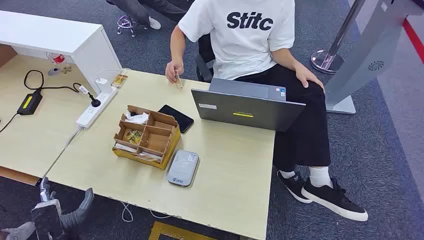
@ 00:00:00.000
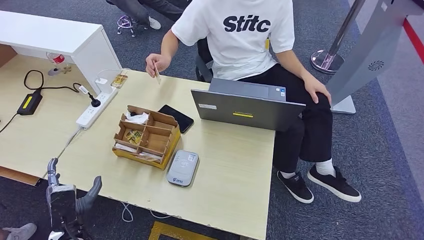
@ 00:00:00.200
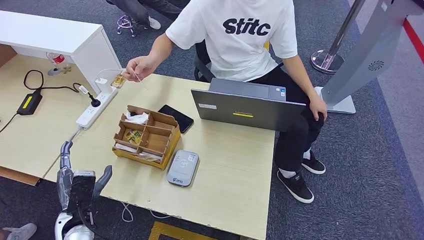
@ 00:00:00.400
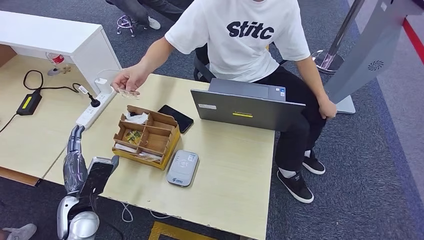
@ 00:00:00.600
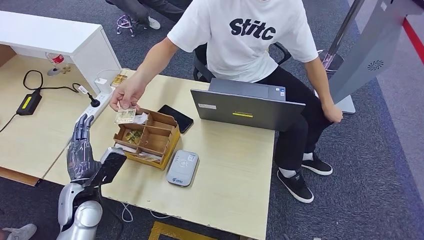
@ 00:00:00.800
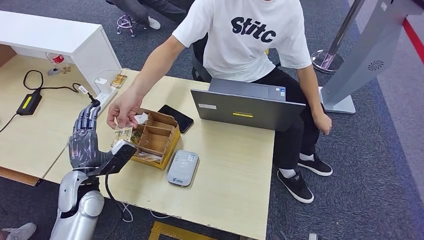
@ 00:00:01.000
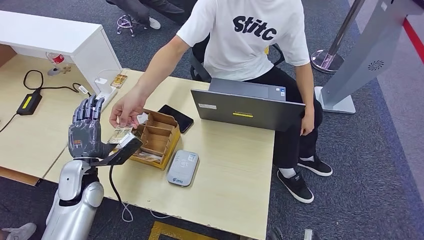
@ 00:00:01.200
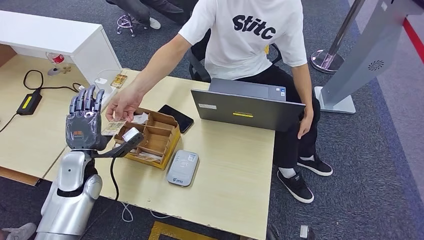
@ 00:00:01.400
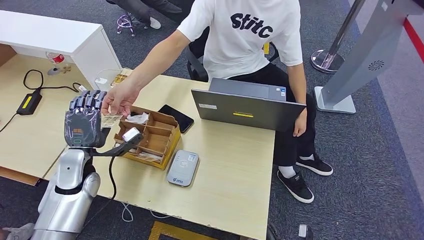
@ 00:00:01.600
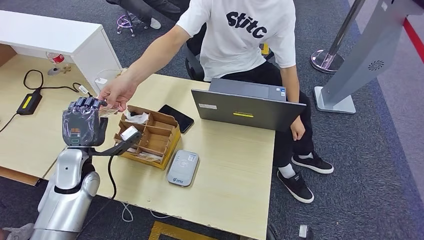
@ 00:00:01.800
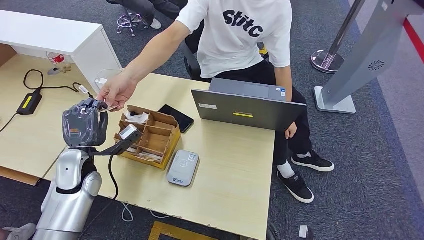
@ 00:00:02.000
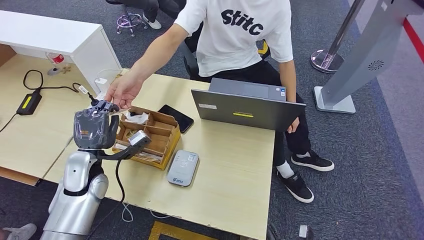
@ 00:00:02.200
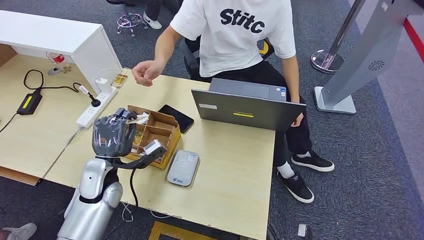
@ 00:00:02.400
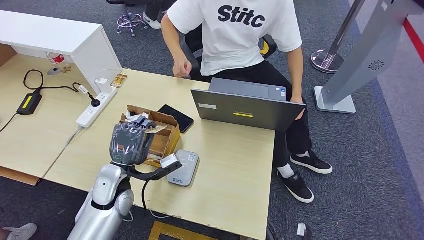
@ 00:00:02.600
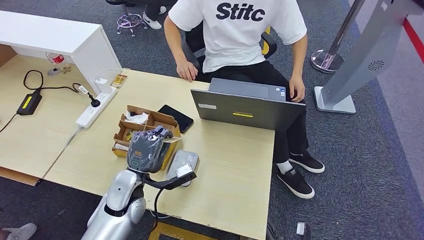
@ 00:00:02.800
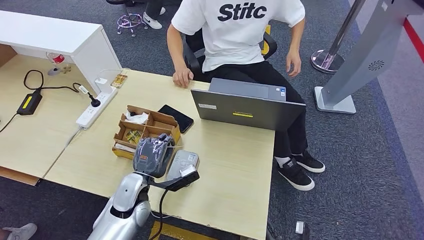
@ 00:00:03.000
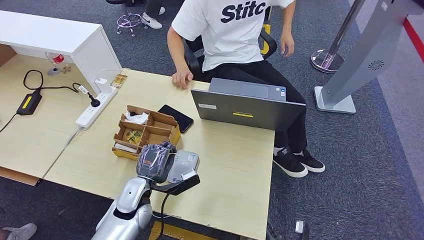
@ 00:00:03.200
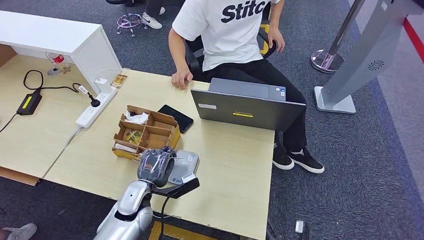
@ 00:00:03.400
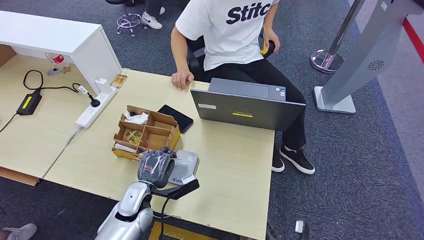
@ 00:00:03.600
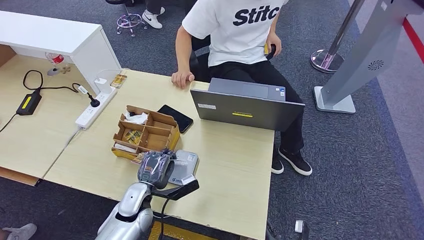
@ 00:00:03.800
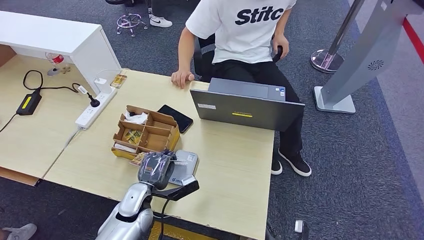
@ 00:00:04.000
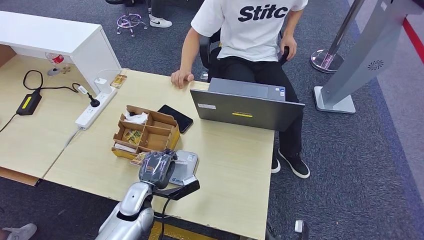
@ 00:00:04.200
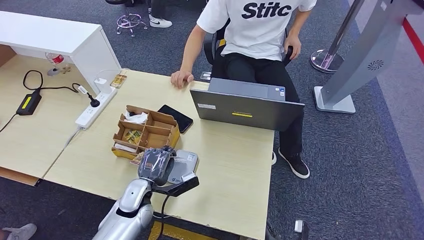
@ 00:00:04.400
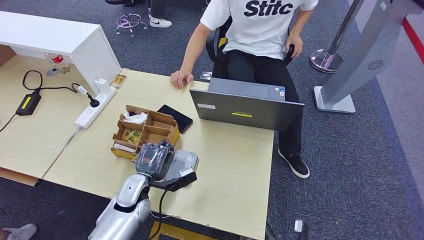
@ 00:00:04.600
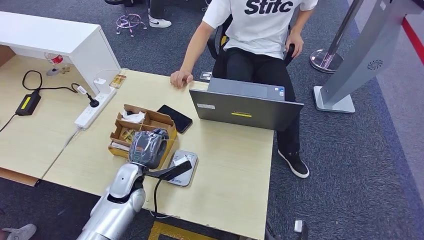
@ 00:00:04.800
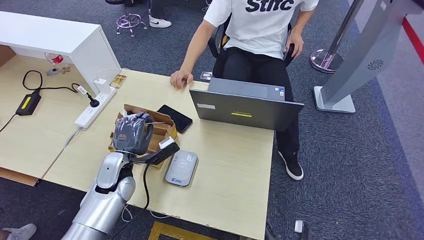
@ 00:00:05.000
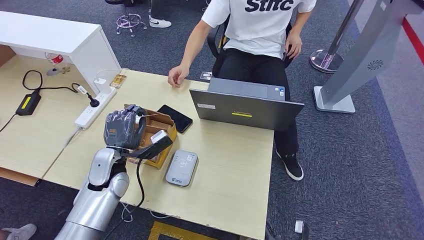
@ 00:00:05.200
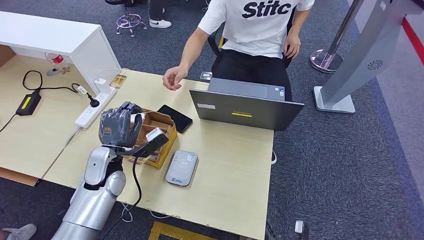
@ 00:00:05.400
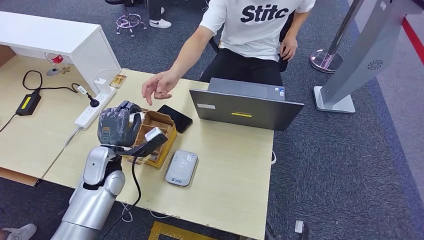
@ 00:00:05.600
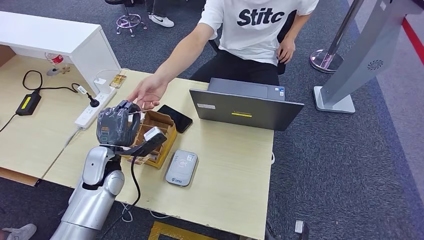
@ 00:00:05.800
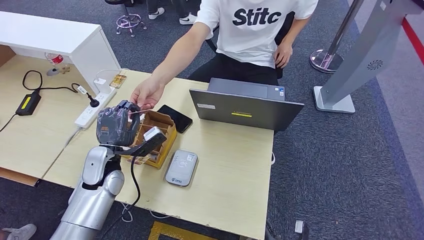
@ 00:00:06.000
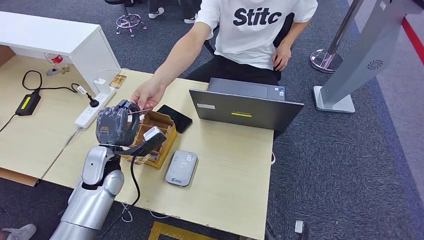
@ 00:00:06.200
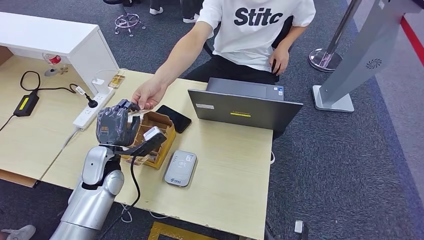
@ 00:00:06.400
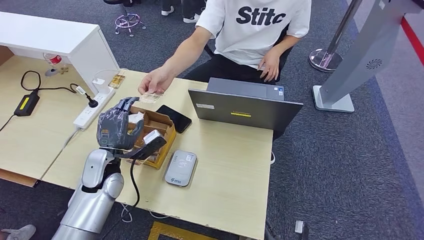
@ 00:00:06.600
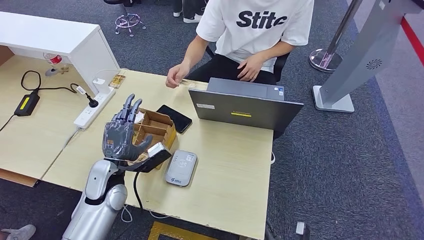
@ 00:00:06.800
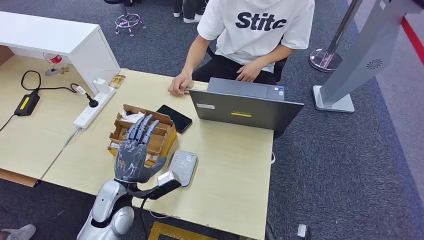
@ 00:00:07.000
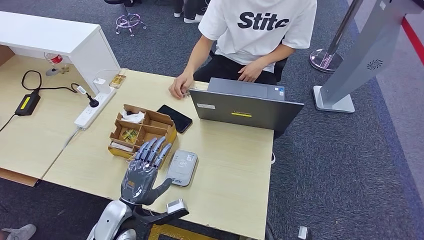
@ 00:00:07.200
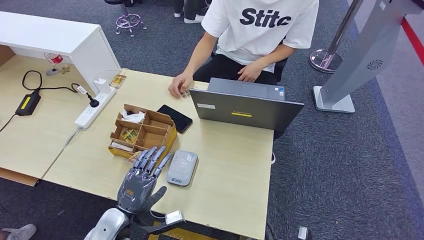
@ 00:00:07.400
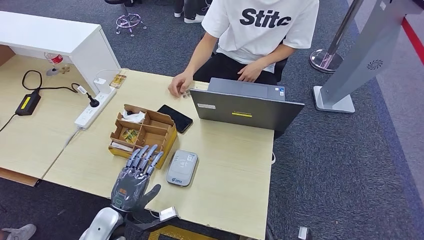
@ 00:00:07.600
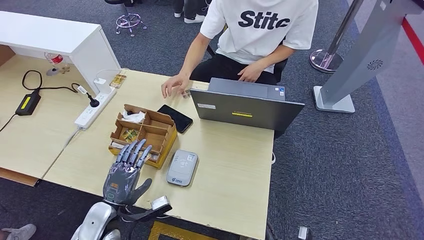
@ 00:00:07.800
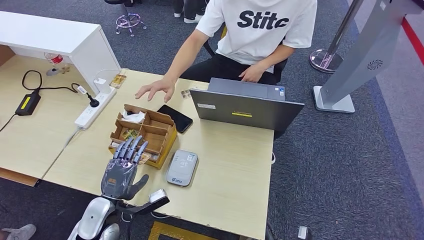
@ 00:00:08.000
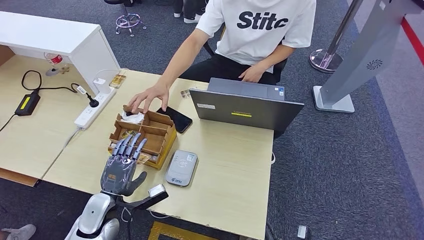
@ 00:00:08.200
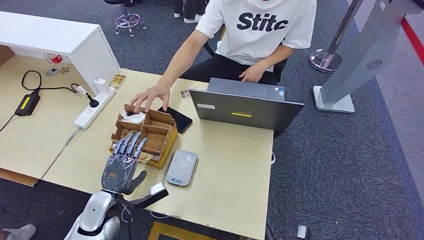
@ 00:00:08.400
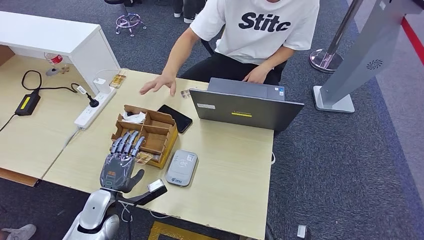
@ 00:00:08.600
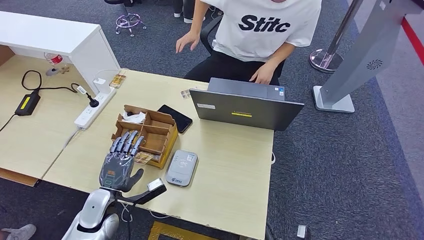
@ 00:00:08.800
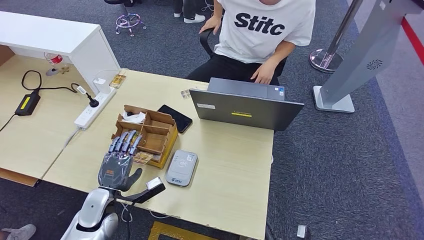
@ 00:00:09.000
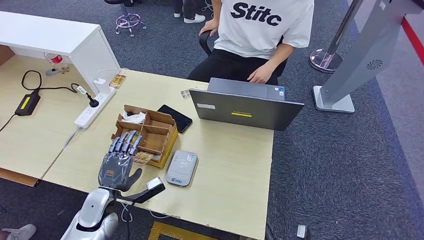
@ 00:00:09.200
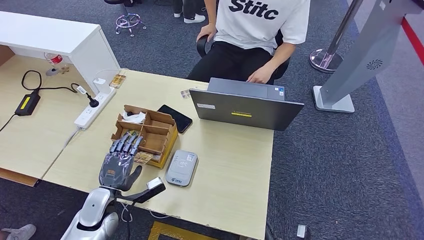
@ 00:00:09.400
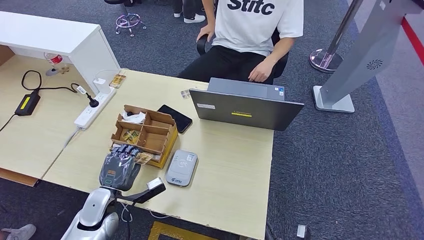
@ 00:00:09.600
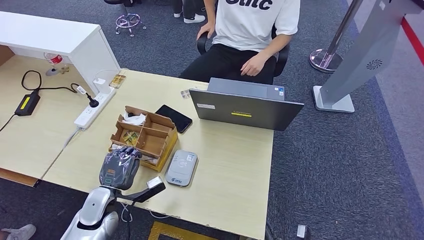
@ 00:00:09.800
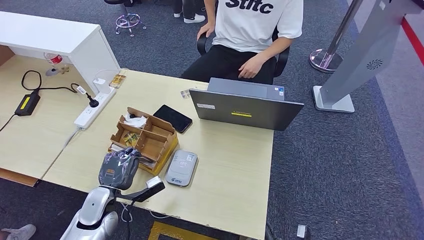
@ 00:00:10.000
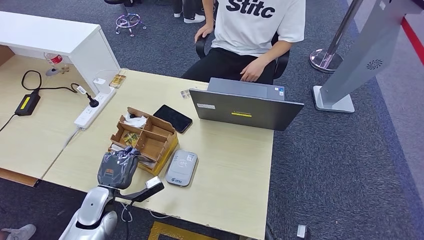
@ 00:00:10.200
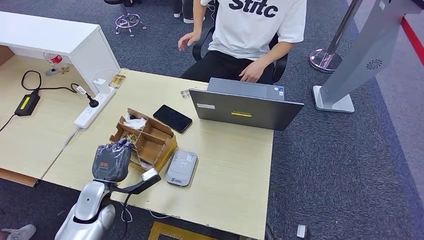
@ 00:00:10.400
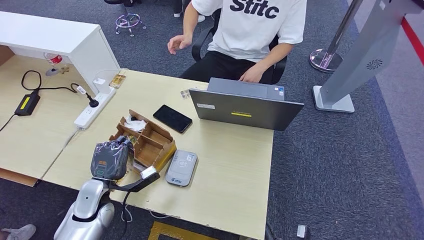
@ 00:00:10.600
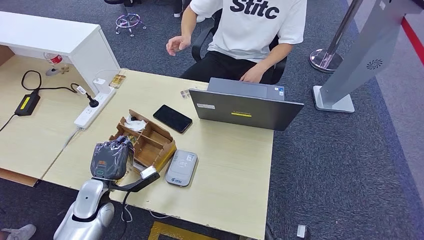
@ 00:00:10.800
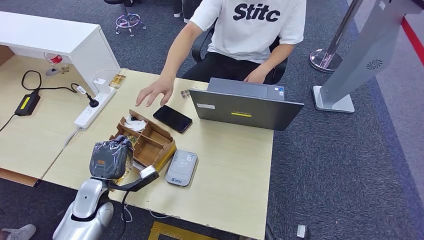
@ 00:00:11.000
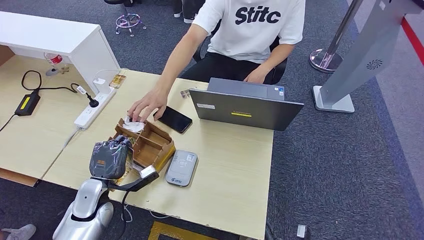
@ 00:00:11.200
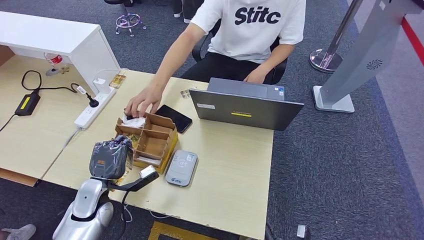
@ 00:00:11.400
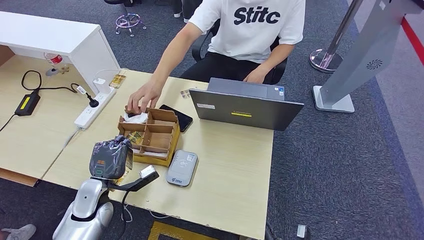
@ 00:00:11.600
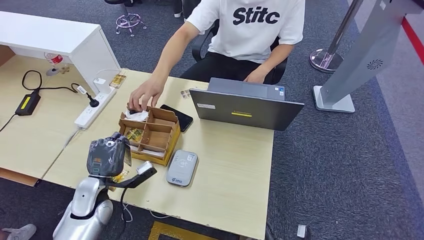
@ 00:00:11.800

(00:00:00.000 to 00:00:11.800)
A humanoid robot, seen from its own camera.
Step, 00:00:00.000 - 00:00:02.600: Take the ID card from the person's hand.
Step, 00:00:02.800 - 00:00:05.000: Place the ID card on the card reader.
Step, 00:00:05.200 - 00:00:06.800: Hand the ID card to the person.
Step, 00:00:09.600 - 00:00:11.600: Pick up the room key from the key card box.
00:00:03.000 - 00:00:04.400: The hands move only a little.
00:00:04.400 - 00:00:06.000: The left hand goes about 15 cm upward, to the left and forward.
00:00:06.000 - 00:00:07.400: The left hand moves backward and downward, about 15 cm.
00:00:07.400 - 00:00:08.800: The left hand is displaced to the left by some 5 cm.
00:00:08.800 - 00:00:11.800: The hands make only small movements.

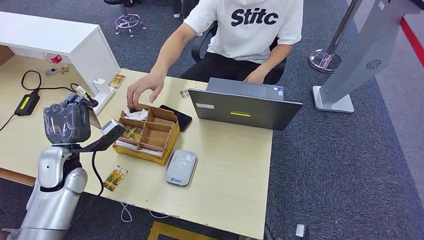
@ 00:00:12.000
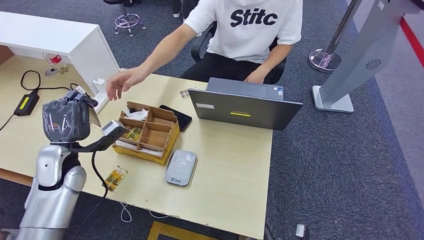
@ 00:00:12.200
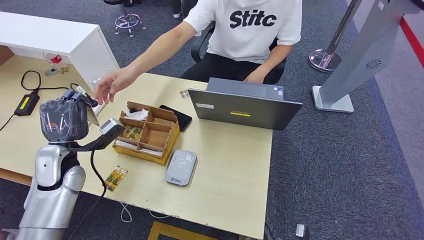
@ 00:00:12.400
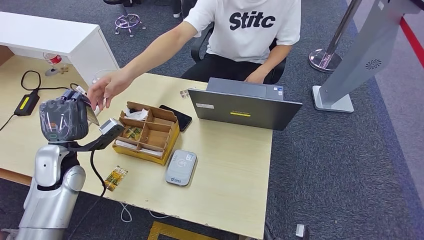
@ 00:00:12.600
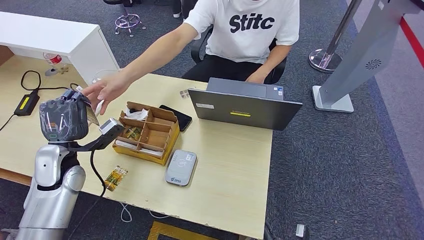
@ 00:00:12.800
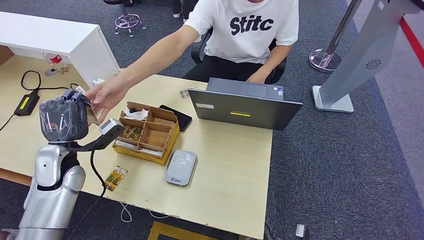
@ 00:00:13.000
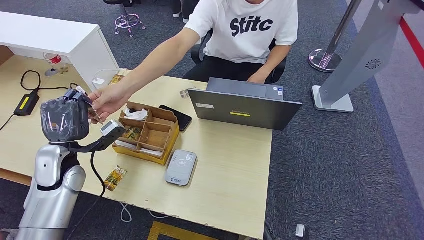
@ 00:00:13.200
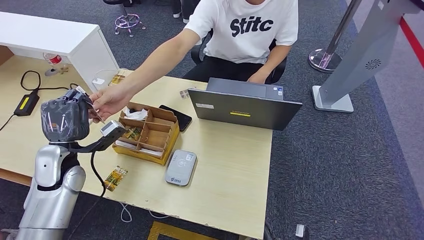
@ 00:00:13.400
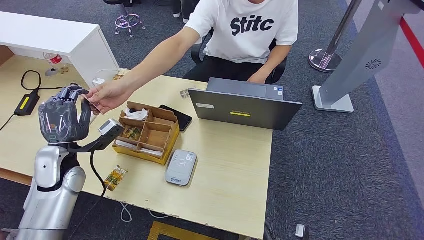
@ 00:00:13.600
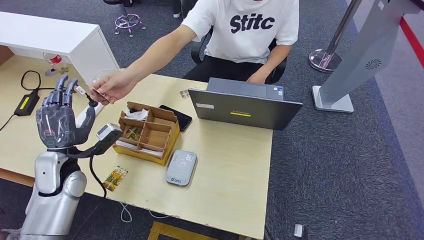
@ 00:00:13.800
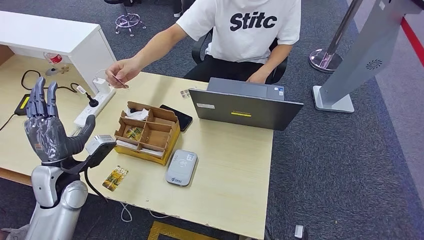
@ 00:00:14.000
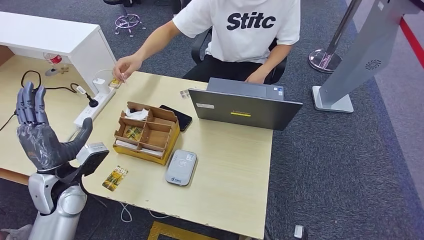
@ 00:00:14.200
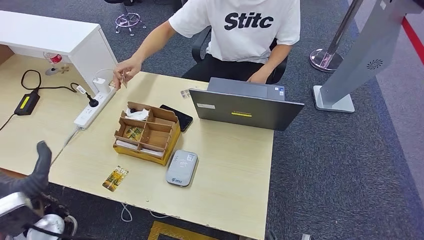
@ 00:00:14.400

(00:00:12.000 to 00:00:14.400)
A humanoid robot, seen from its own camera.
Step, 00:00:12.000 - 00:00:14.400: Hand the room key to the person.
00:00:12.000 - 00:00:13.200: The hands move only a little.
00:00:13.200 - 00:00:14.400: The left hand is displaced backward by about 10 cm.
